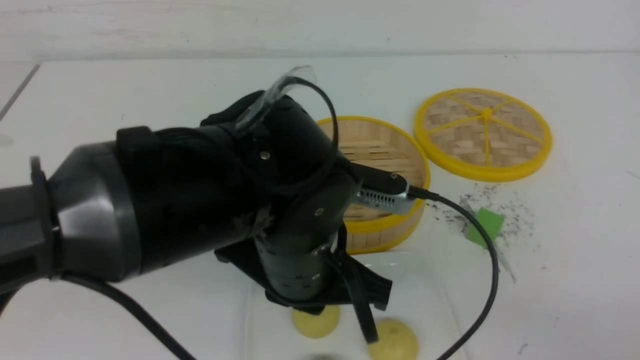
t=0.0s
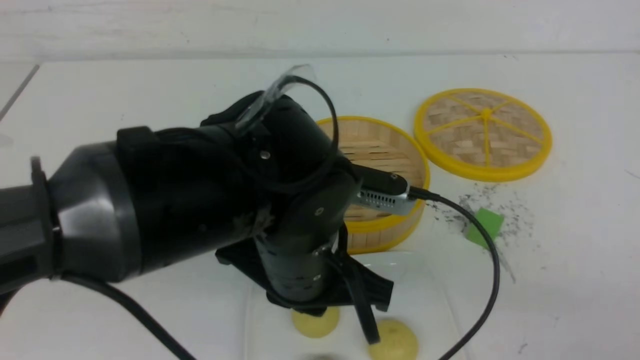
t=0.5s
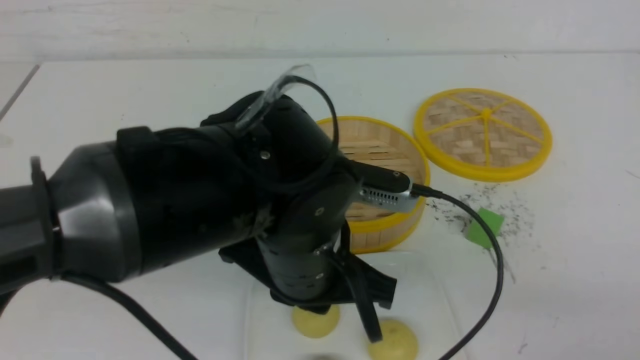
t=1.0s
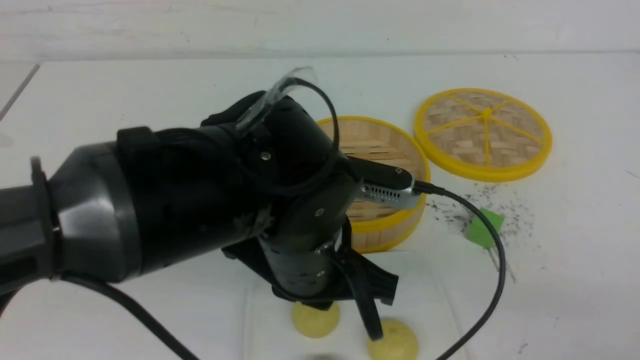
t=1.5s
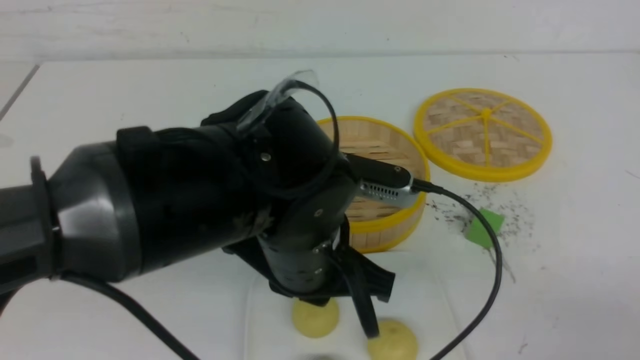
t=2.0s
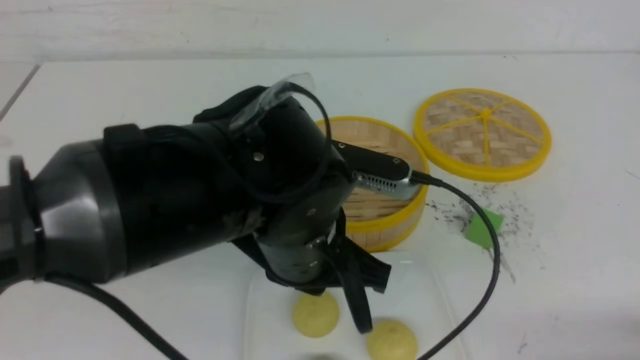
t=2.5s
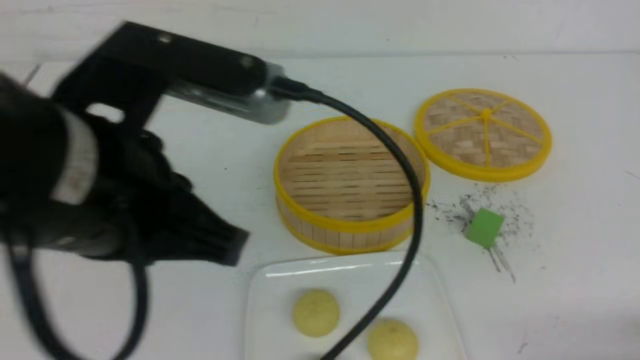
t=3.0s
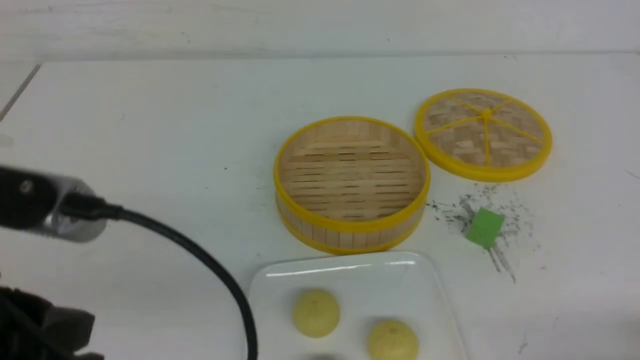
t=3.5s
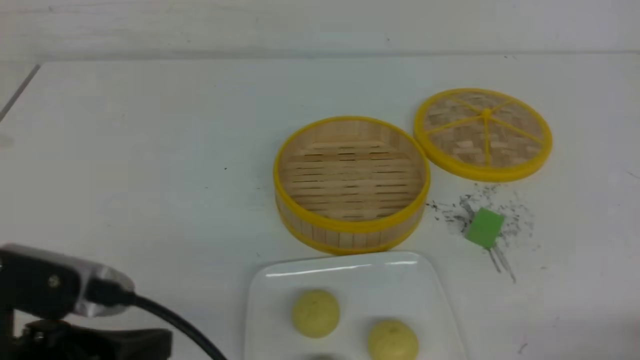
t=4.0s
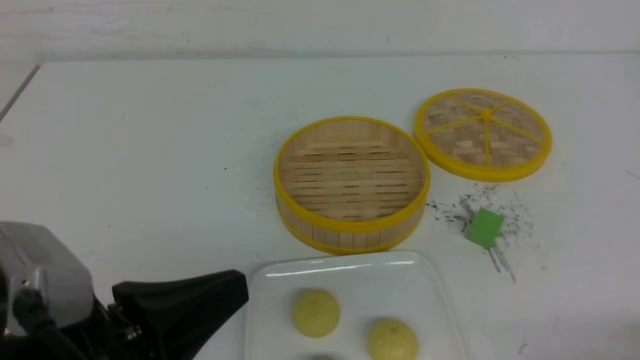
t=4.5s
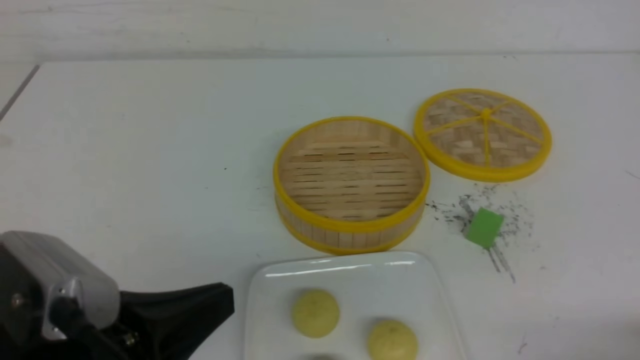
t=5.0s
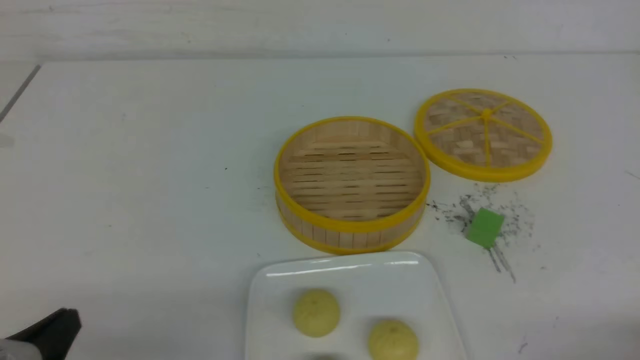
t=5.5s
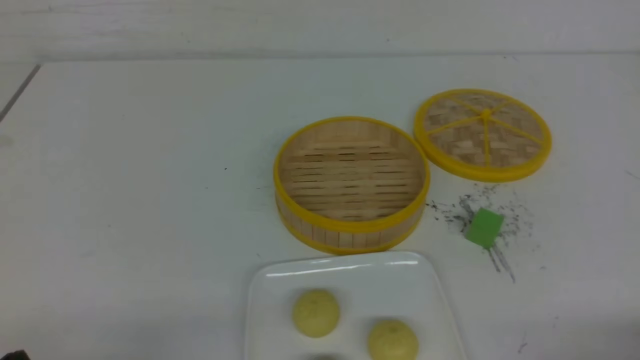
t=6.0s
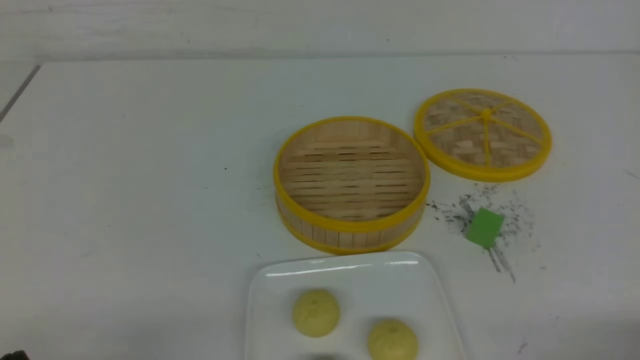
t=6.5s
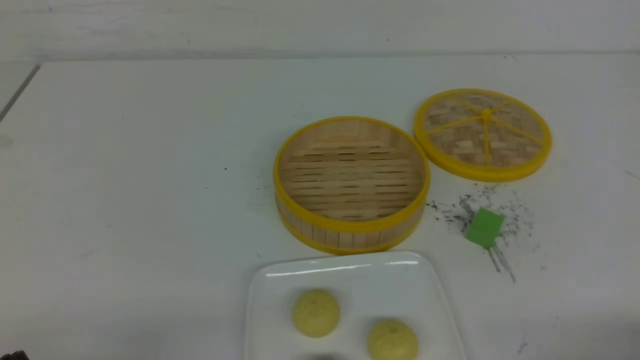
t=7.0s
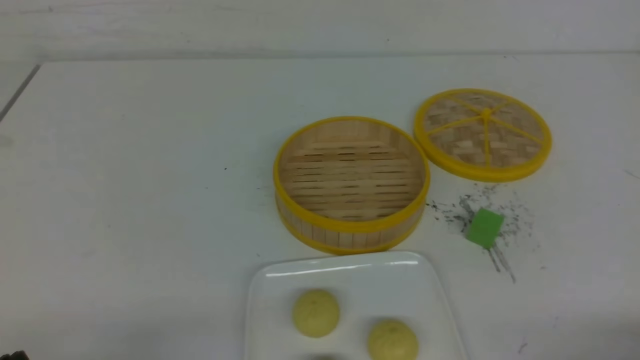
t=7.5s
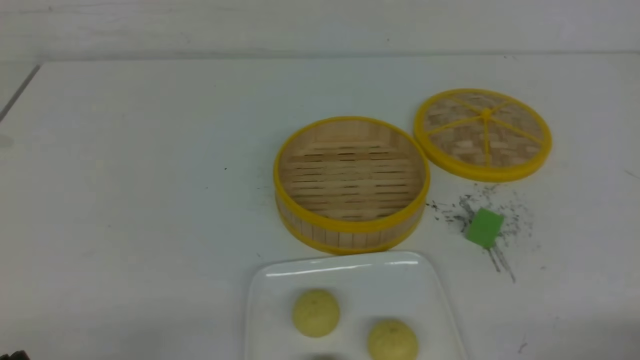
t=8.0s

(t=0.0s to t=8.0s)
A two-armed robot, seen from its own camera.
t=0.0s - t=2.0s: The right gripper goes some 5 cm downward.
t=2.0s - t=4.0s: The right gripper shifts by roughly 5 cm. Meanwhile the left gripper travels to the left and backward by roughly 20 cm.
t=4.0s - t=6.0s: The left gripper moves downward and to the left, roughly 15 cm.
t=6.0s - t=8.0s: Both grippers stay put.

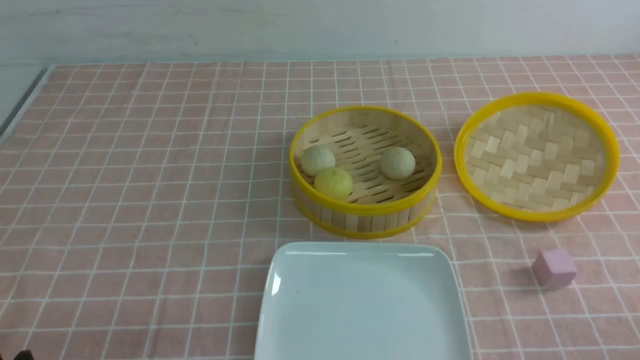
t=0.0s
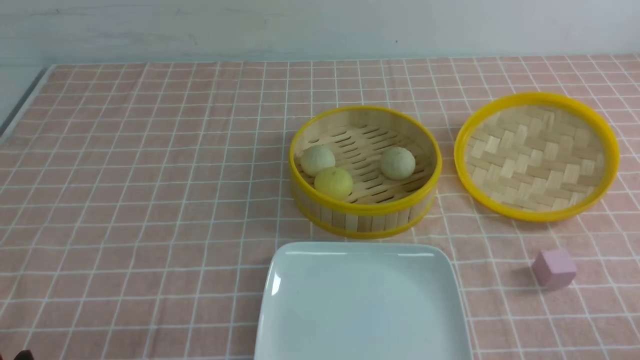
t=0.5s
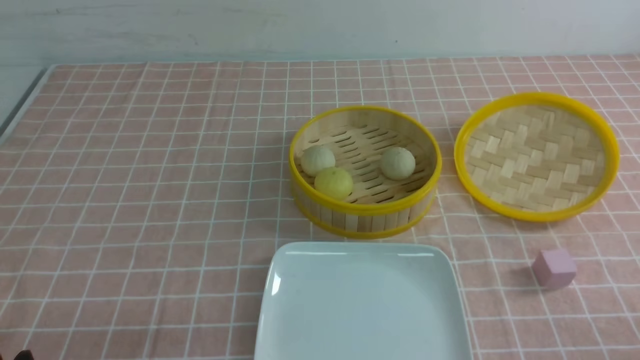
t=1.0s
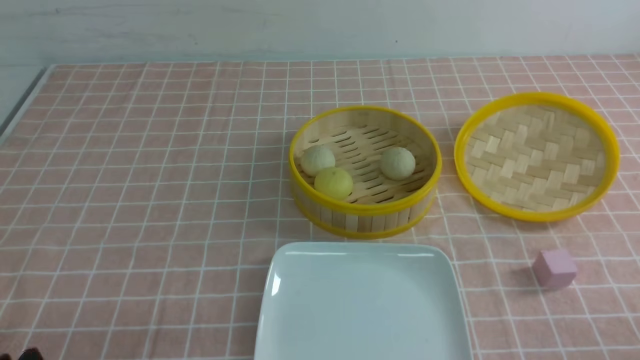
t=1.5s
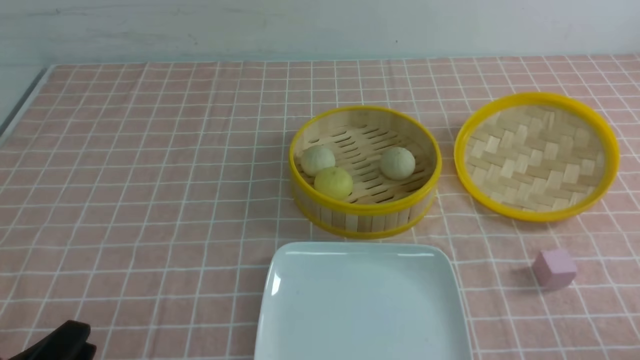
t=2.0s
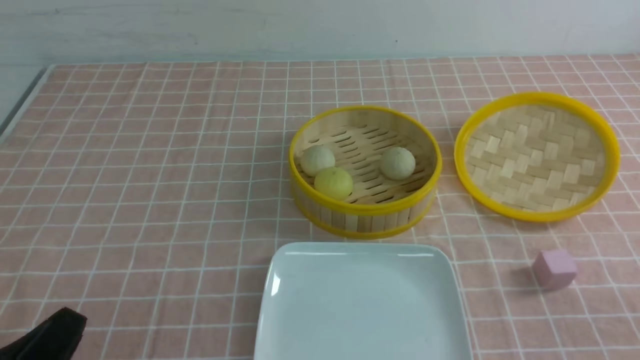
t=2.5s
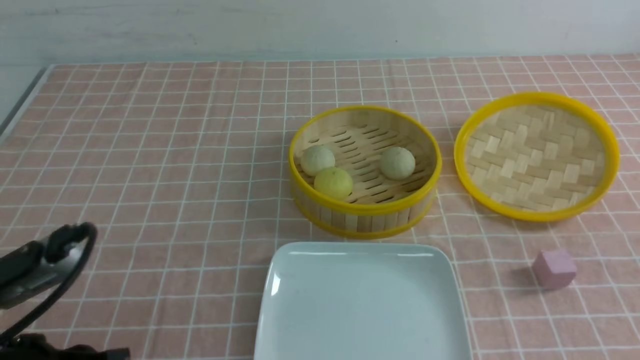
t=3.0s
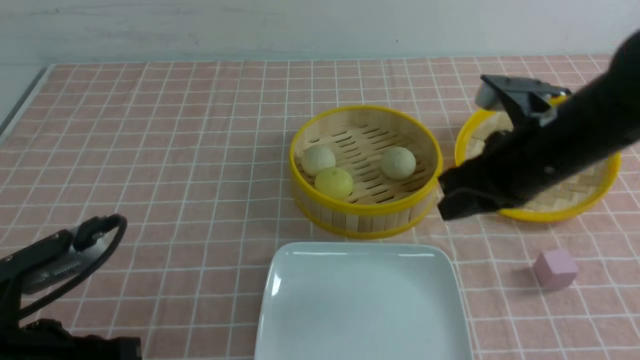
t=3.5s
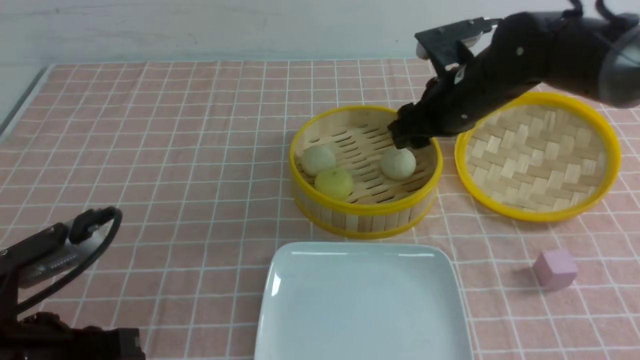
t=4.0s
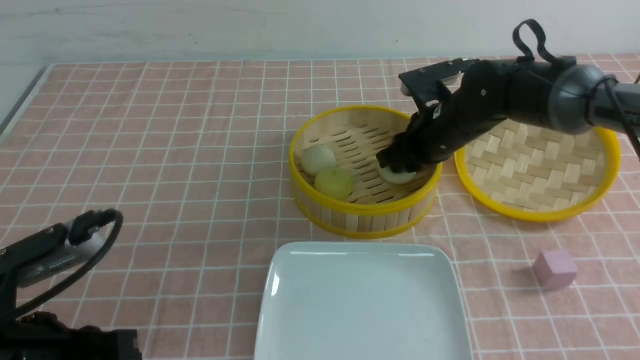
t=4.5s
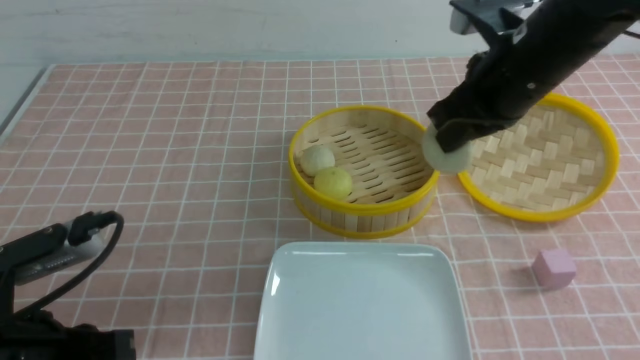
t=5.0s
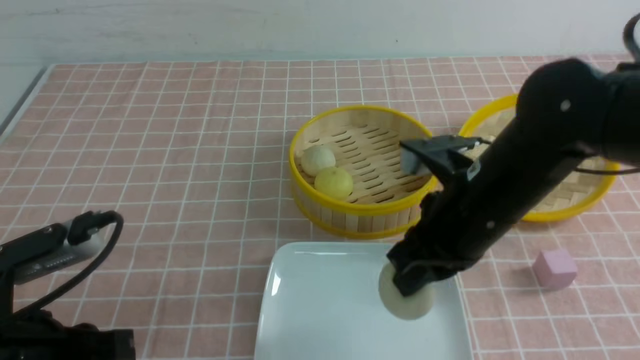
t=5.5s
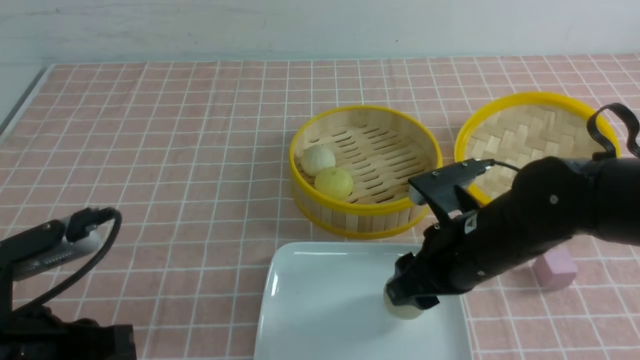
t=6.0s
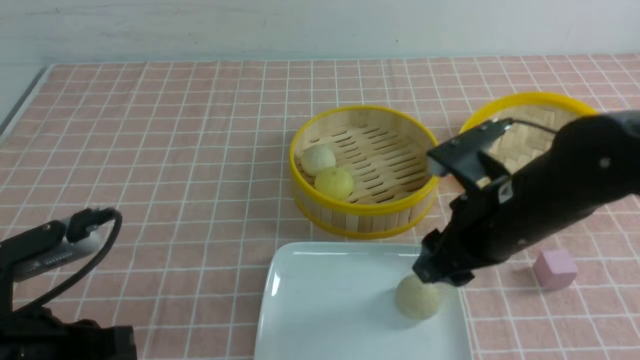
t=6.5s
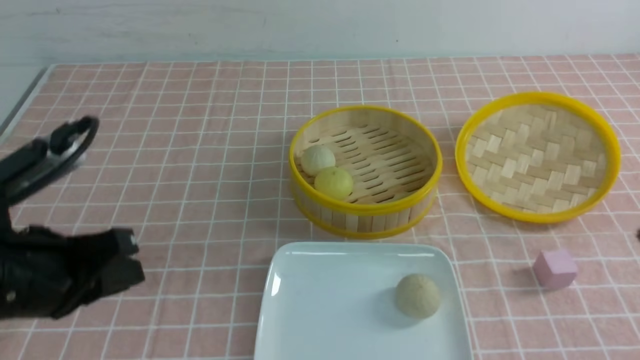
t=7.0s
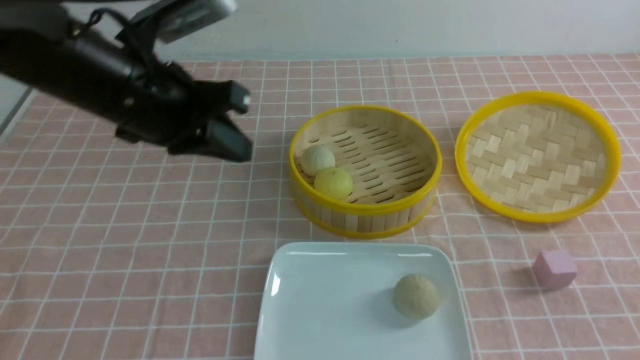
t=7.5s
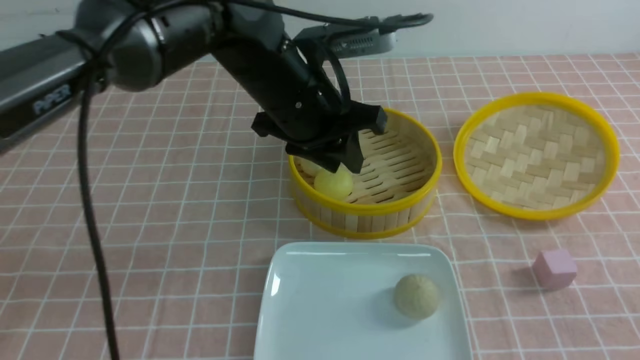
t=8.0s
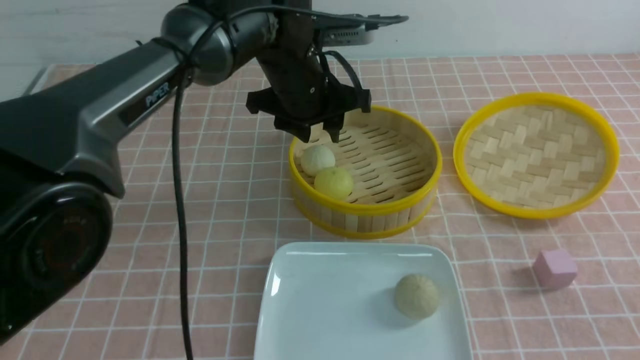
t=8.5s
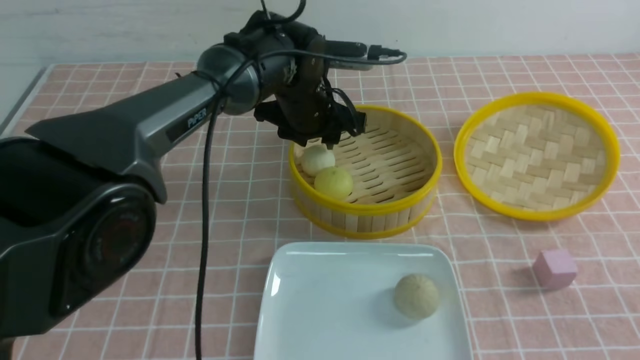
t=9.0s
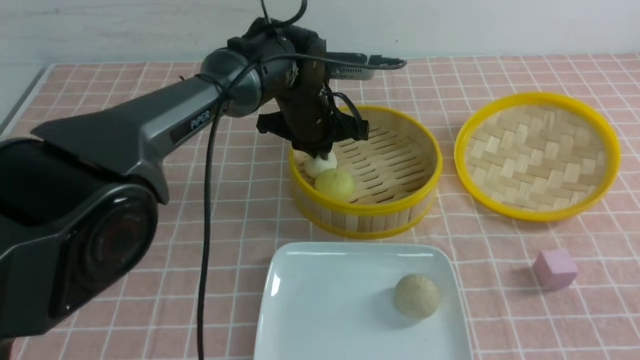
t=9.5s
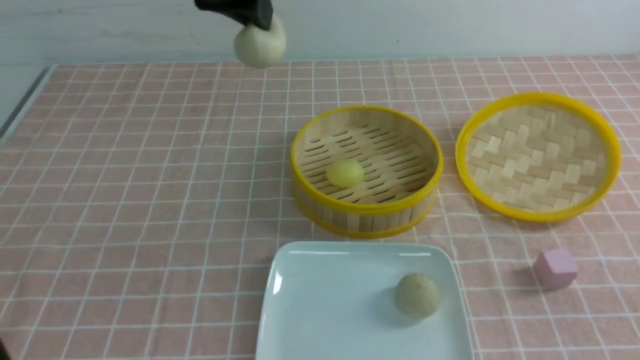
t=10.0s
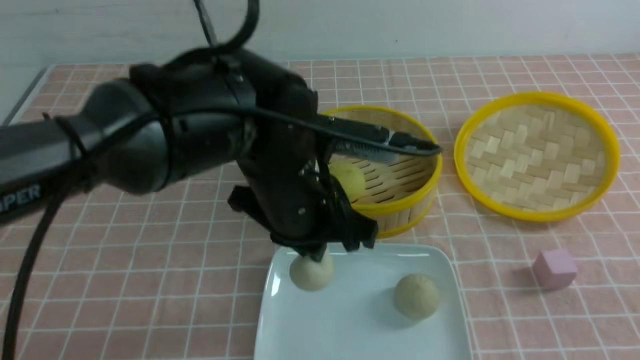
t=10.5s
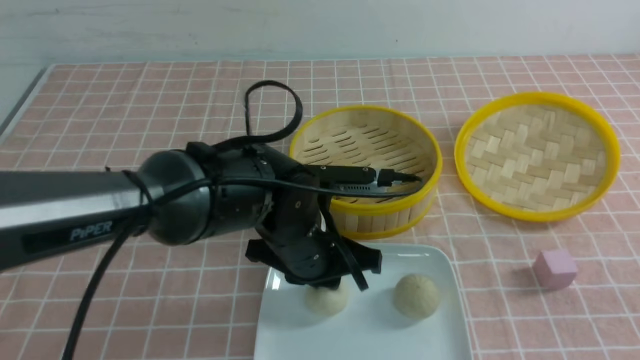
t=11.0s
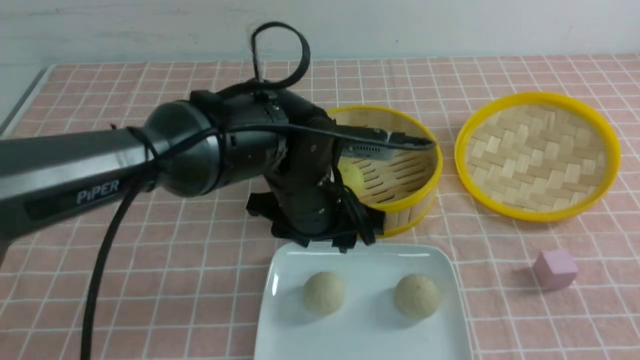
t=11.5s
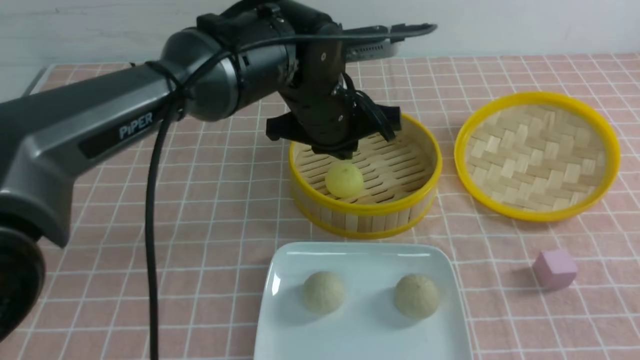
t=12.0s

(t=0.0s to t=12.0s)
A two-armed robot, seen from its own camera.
Step, t=0.0s - t=4.0s: use the right arm to grab the steamed stuffed bun that is closest to it.
Step, t=4.5s - t=6.0s: use the right arm to put the steamed stuffed bun into the plate.
Step, t=6.5s - t=9.0s: use the left arm to grab the steamed stuffed bun that is closest to it.
Step, t=9.5s - t=11.0s: use the left arm to put the steamed stuffed bun into the plate.
t=2.0s - t=4.0s: The left gripper travels forward and upward by approximately 10 cm, and closes its fingers. The right gripper is displaced forward and to the left by some 40 cm, and opens its fingers.
t=4.0s - t=6.0s: The right gripper moves backward, approximately 15 cm, and closes and opens again.
t=6.0s - t=8.0s: The right gripper shifts roughly 25 cm backward, to the right and upward, and closes its fingers. Meanwhile the left gripper travels forward and to the right by roughly 30 cm.
t=8.0s - t=10.0s: The left gripper moves upward, some 10 cm, and closes.
t=10.0s - t=12.0s: The left gripper travels downward and to the right by about 15 cm, and opens, then closes again.
